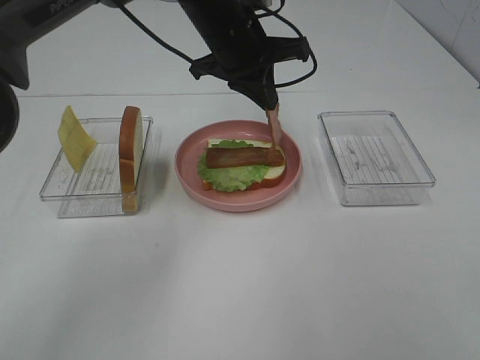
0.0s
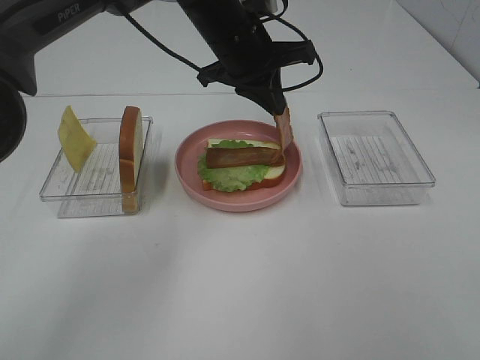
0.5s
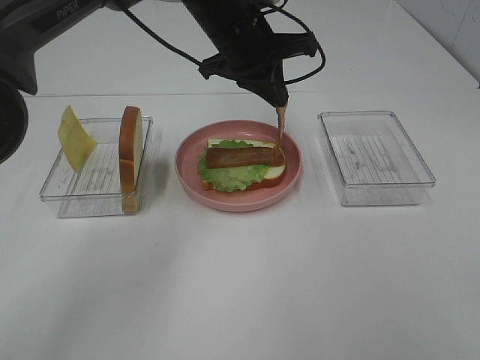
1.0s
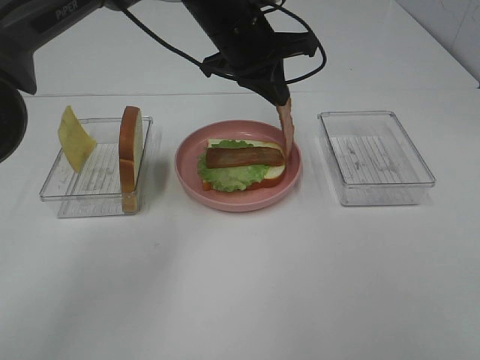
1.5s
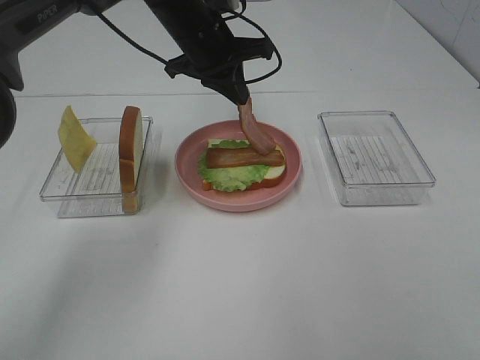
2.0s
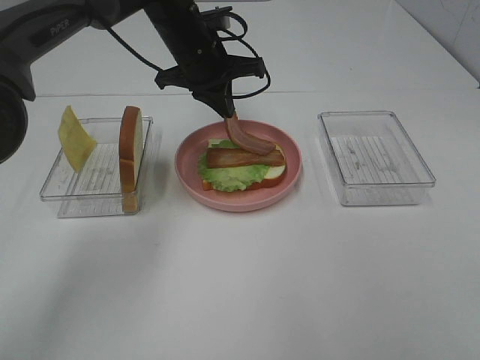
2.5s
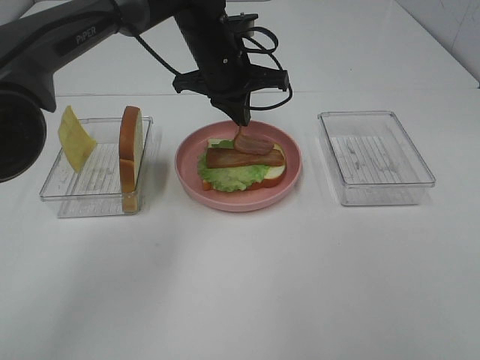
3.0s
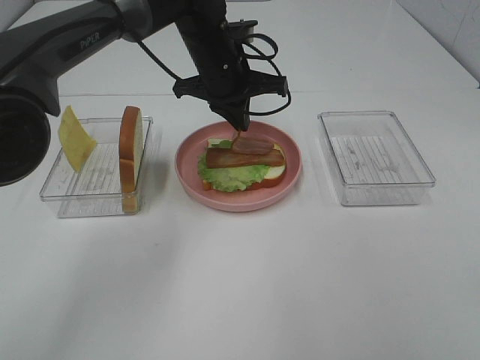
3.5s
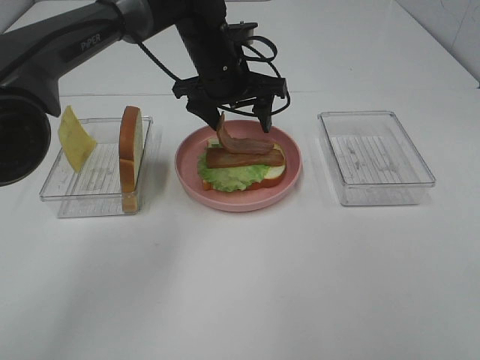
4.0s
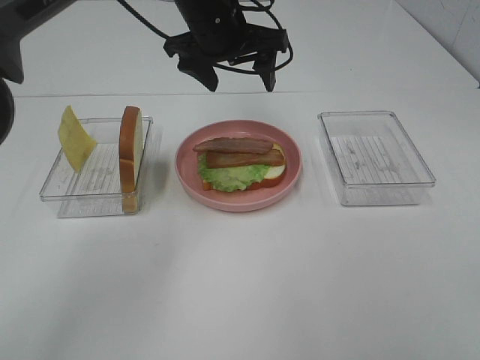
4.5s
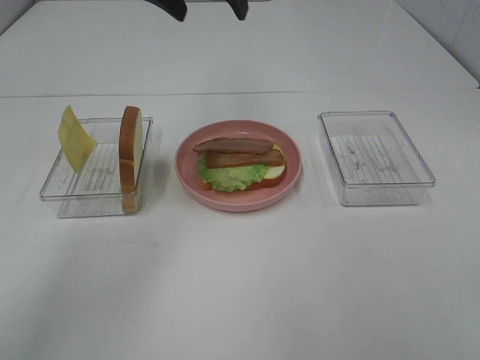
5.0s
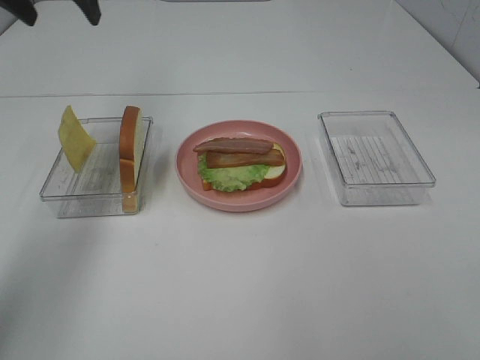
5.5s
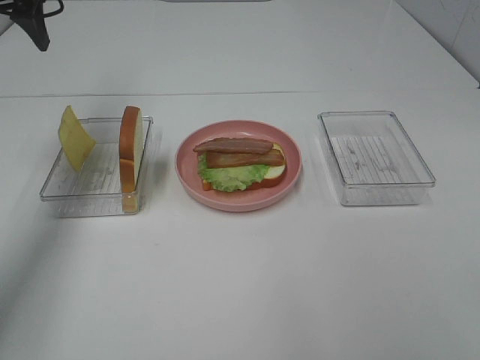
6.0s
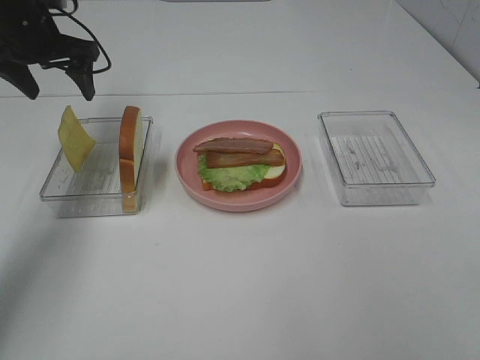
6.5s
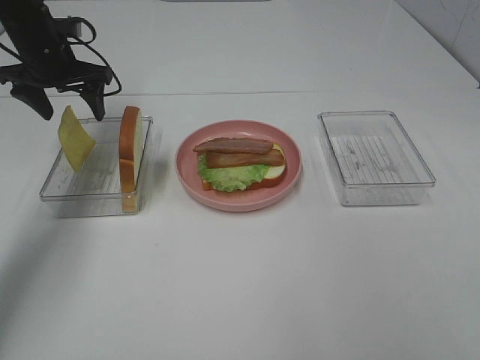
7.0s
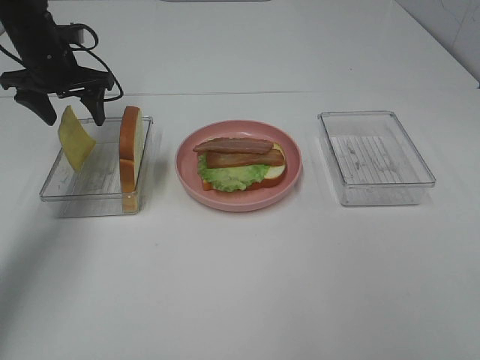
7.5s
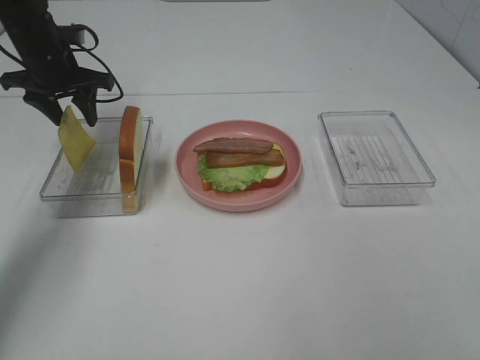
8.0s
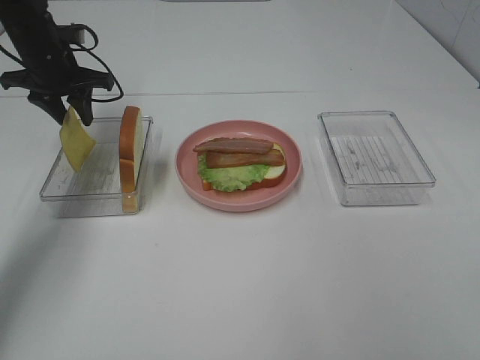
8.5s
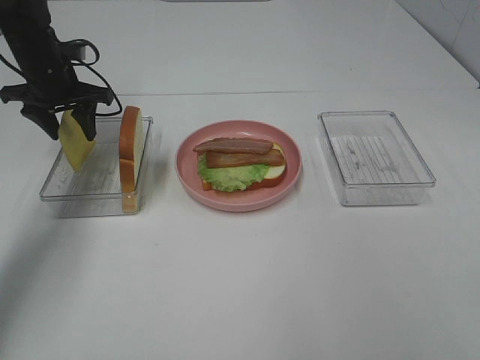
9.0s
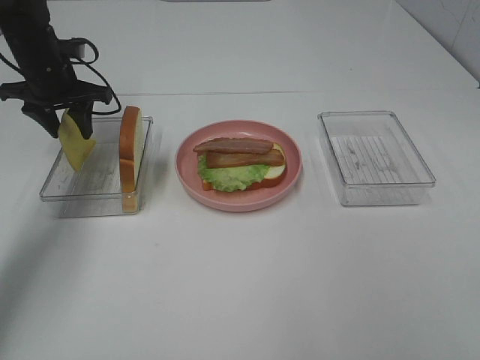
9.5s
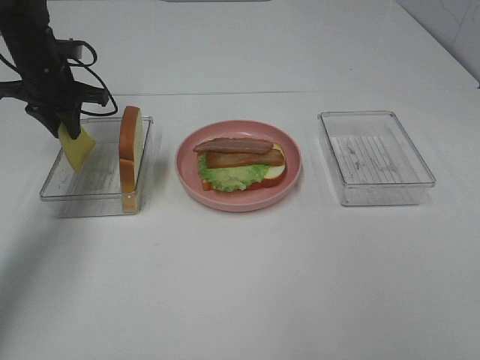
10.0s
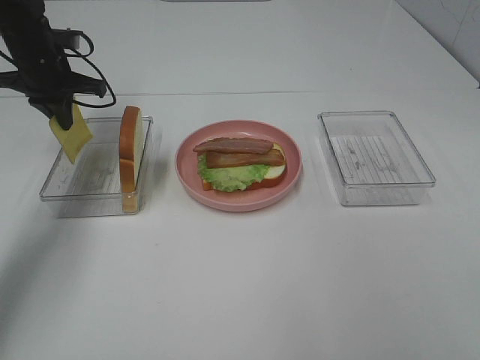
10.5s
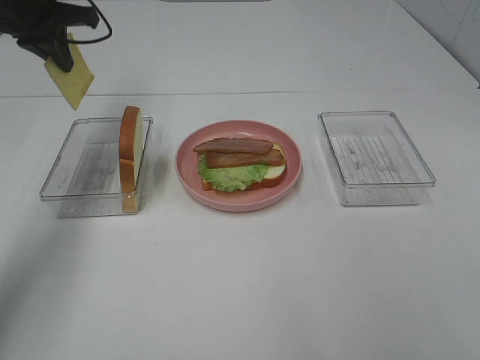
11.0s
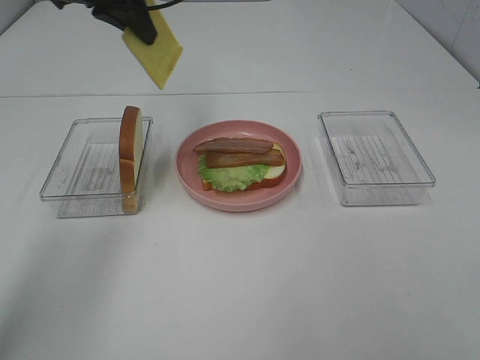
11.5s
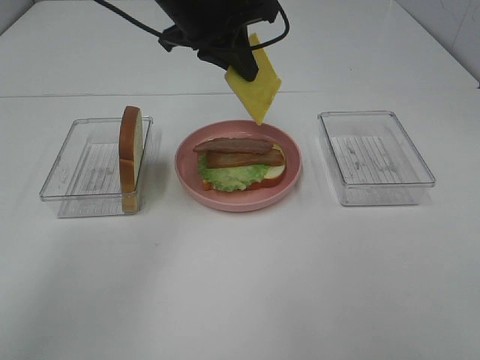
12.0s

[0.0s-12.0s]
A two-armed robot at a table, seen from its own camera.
Task of the whole recording: Make sandwiches.
Step, 0.0s to 4.0s: Left hand:place bacon on bacon.
Step, 4.5s to 9.5s: Left hand:grab the cheese slice.
0.0s to 2.0s: The left gripper changes place by about 5 cm.
2.0s to 4.0s: The left gripper opens up.
4.0s to 6.0s: The left gripper moves to the left and upward, some 30 cm.
6.0s to 8.0s: The left gripper goes some 15 cm downward and forward.
8.0s to 10.0s: There are only small adjustments of the grippers.
10.0s to 12.0s: The left gripper heads to the right and upward, covering roughly 25 cm.

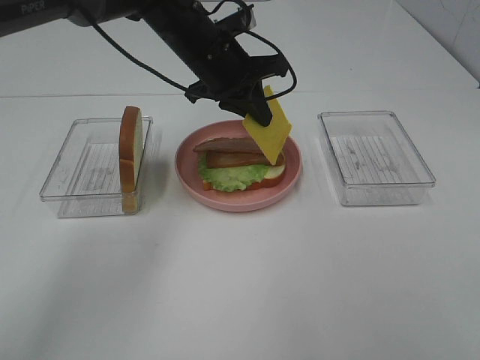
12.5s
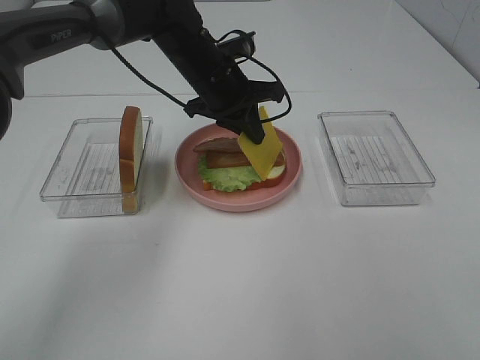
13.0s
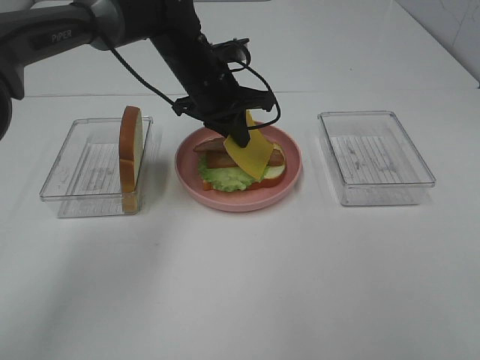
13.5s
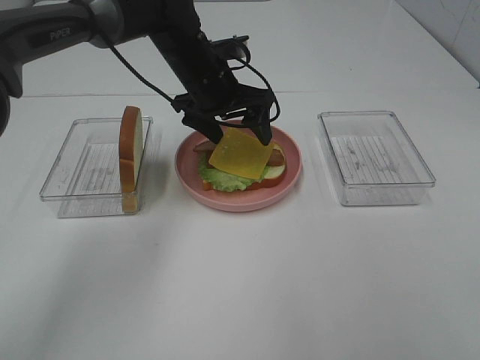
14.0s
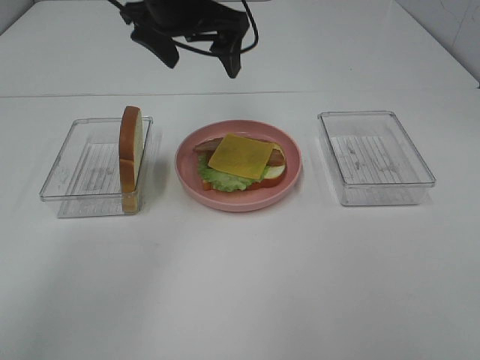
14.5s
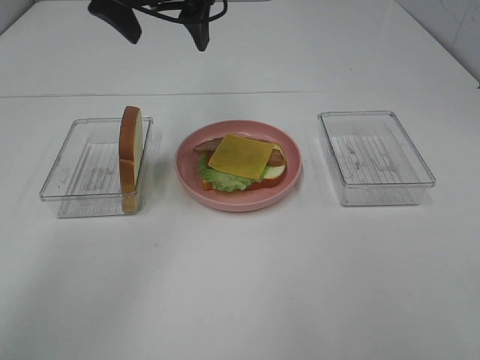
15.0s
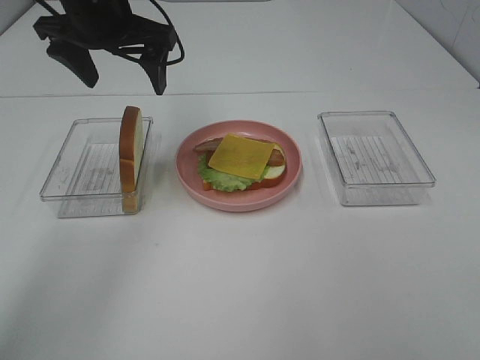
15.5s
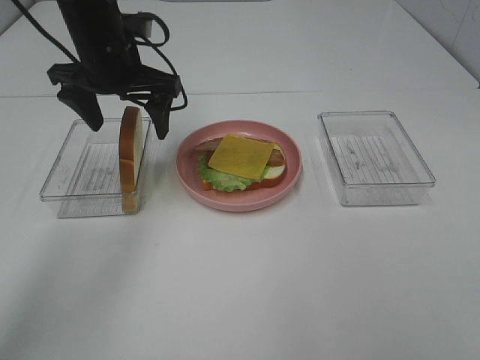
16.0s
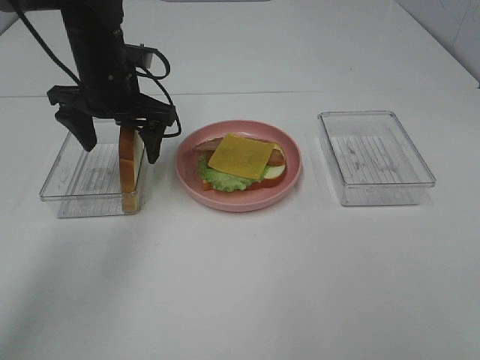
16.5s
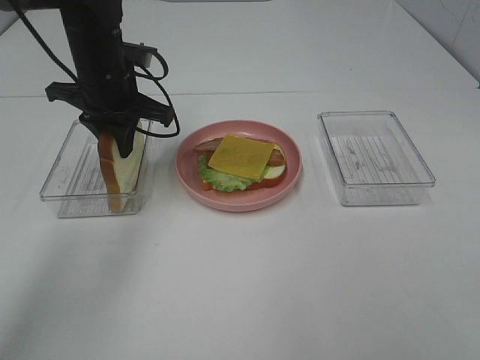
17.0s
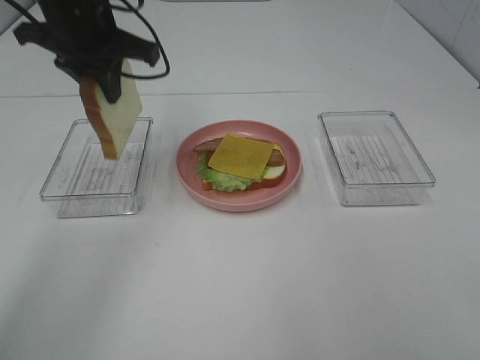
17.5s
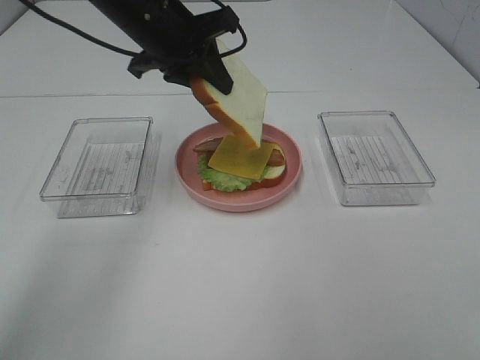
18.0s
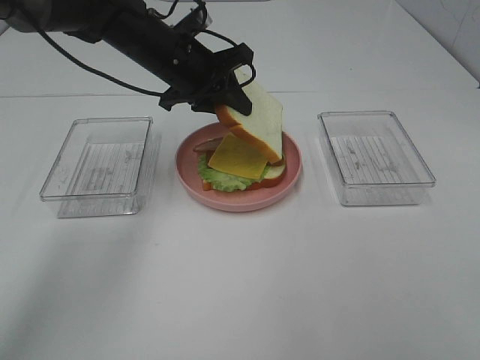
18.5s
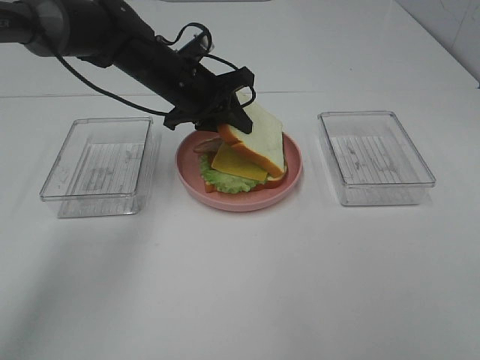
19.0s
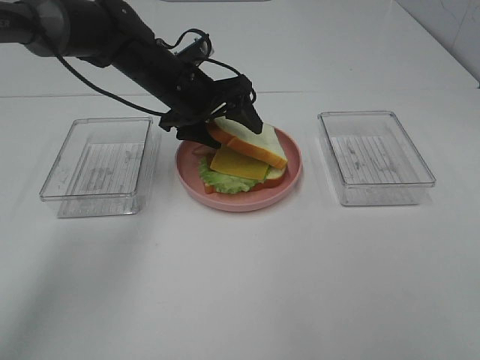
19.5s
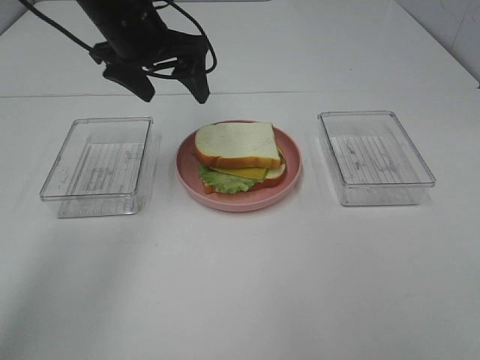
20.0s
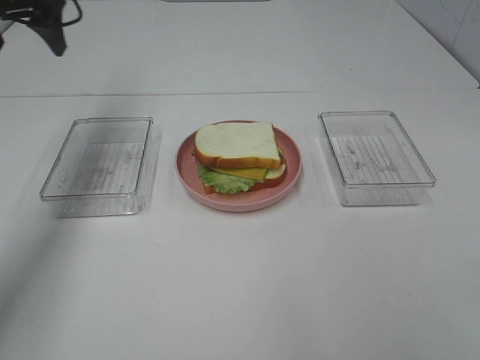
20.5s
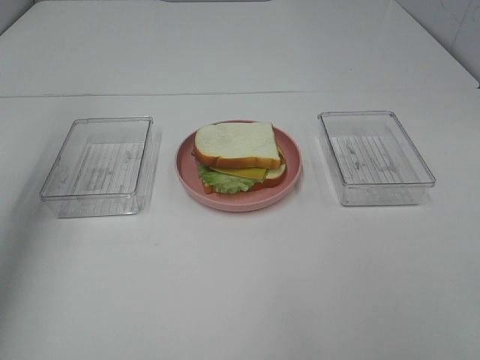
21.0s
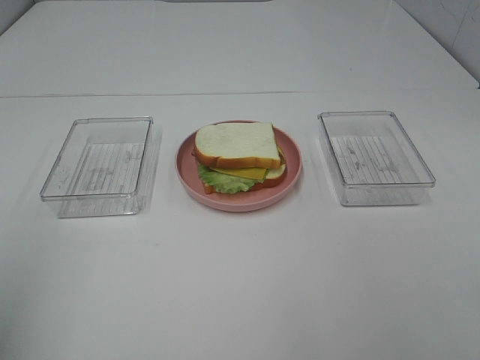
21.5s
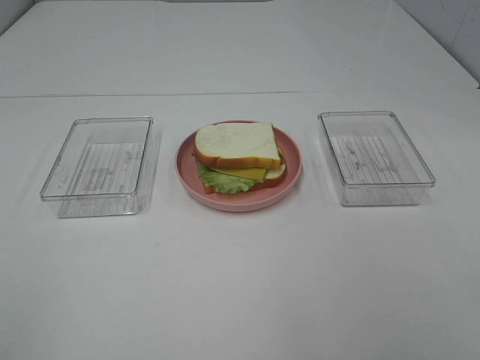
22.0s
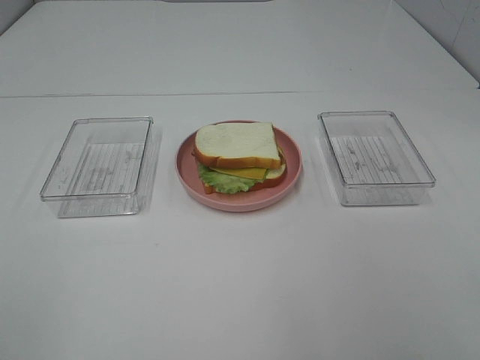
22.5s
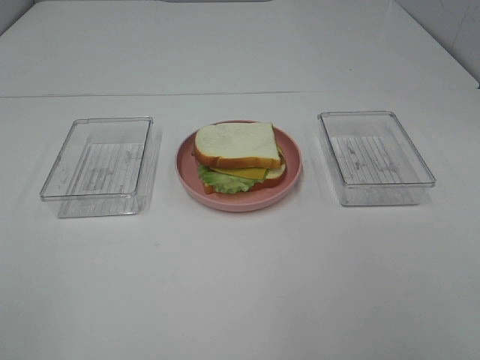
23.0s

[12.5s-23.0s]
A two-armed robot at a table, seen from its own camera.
Task of the whole recording: Make sandwiches.
Step, 14.5s to 17.0s: Left hand:grab the bread slice.
Step, 17.5s to 19.5s: Left hand:place the bread slice on the cheese slice.
12.5s to 14.5s: The left gripper shifts about 10 cm upward, and opens its fingers.
14.5s to 16.5s: The left gripper heads downward and to the left, covering roughly 10 cm.
16.5s to 19.0s: The left gripper travels to the right by about 5 cm, goes upward and returns, roughly 10 cm each way, and closes its fingers.
19.0s to 21.0s: The left gripper is displaced to the left, upward and backward by approximately 35 cm, and opens up.
21.0s to 23.0s: The left gripper travels backward by approximately 35 cm.

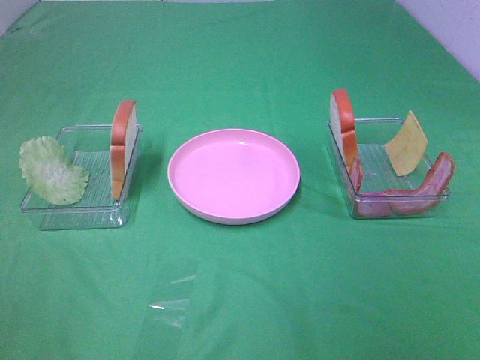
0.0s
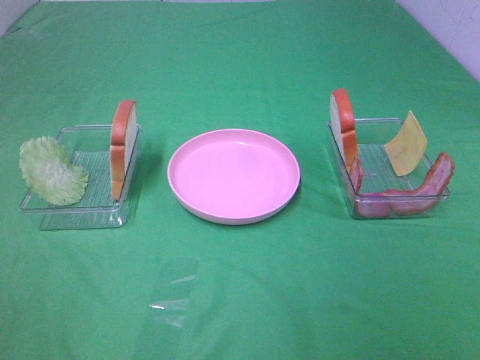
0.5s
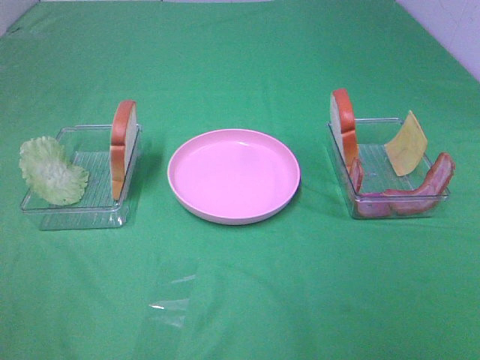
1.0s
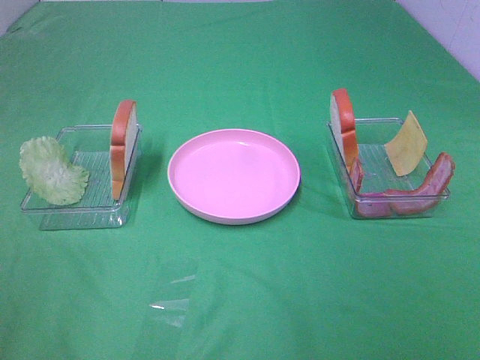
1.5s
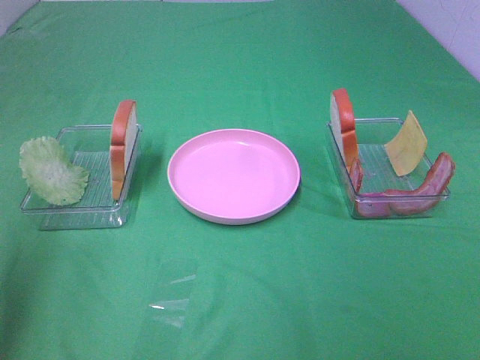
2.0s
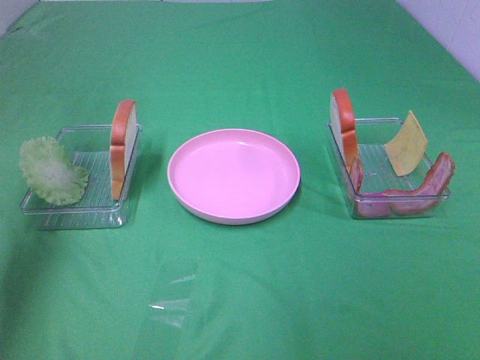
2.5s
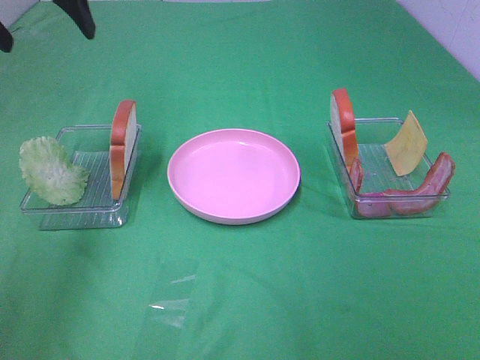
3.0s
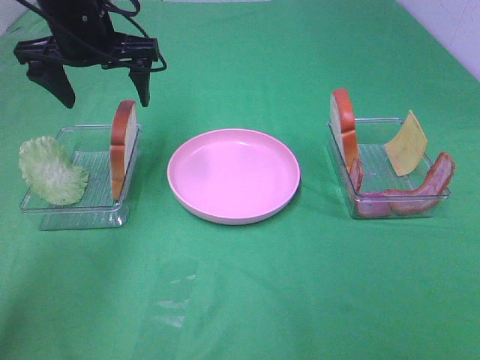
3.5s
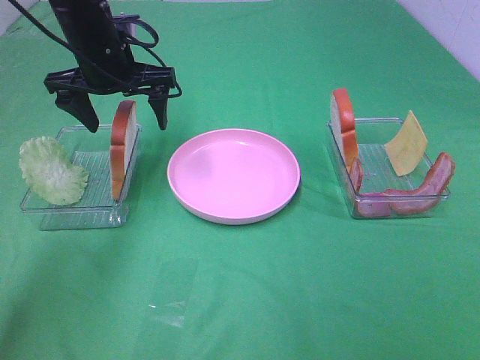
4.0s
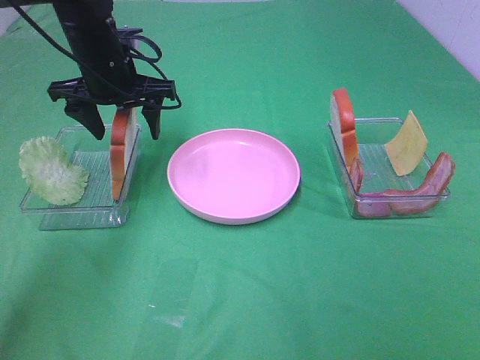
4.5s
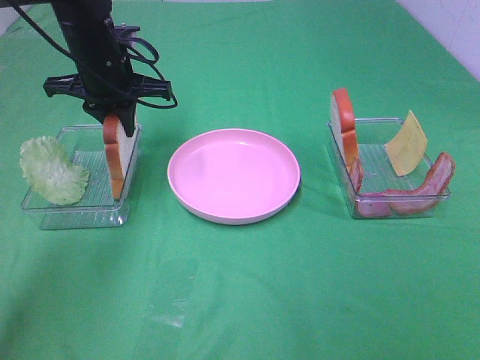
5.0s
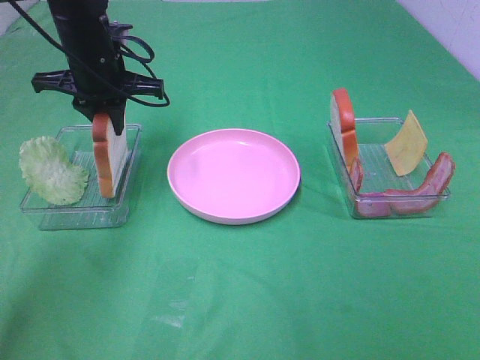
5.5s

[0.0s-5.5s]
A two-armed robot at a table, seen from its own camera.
Task of the whole recording: Make sandwiches.
Step, 0.0s to 5.0s: Left hand:grab the bread slice.
0.0s to 2.0s: The left gripper is displaced forward and upward by approximately 20 cm.
2.0s to 3.5s: The left gripper heads forward, to the right and downward, covering about 35 cm.
3.5s to 5.5s: The left gripper ends up some 5 cm from where it was, and closes its fingers.
